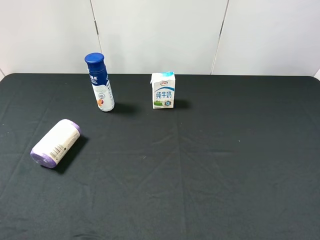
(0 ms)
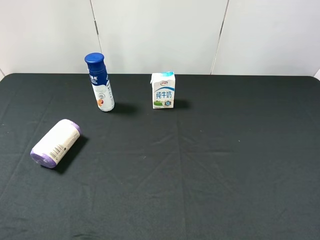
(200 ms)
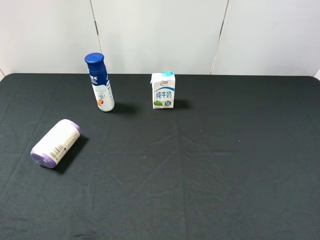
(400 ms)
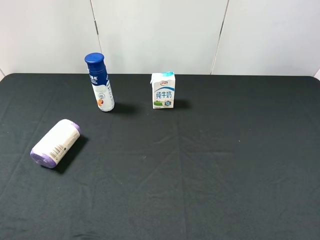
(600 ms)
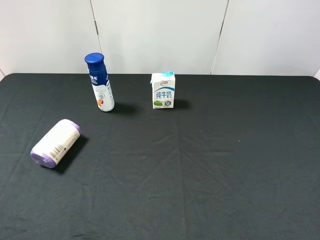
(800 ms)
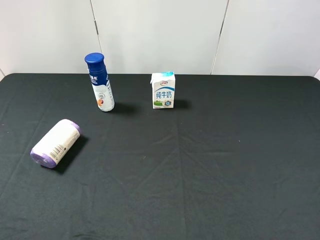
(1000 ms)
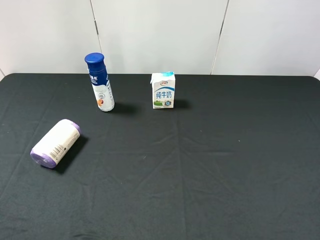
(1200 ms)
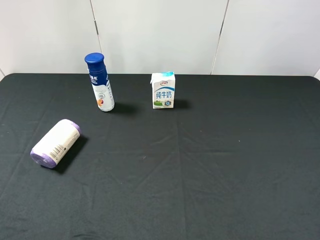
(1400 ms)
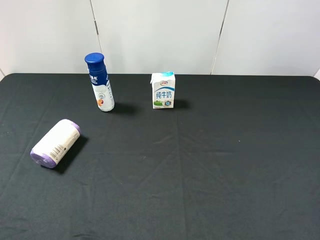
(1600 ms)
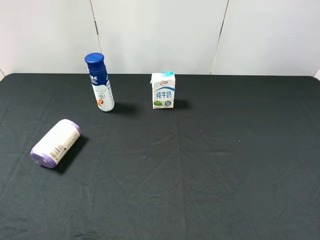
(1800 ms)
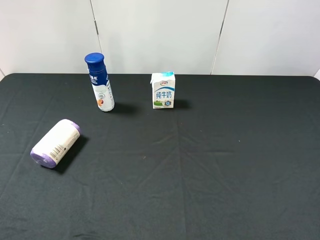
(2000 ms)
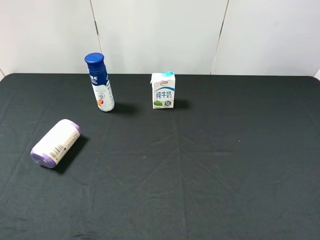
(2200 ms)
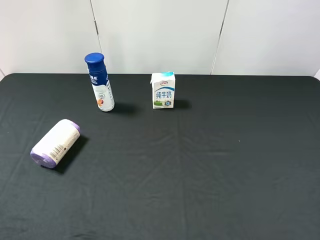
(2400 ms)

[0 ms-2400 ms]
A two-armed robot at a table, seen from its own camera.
Task of the whole recording: use the right gripper to pick up the item and transfer it from the right gripper to the left gripper.
1200 ms to 2400 ms: Both grippers stay about where they are.

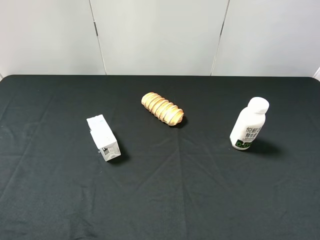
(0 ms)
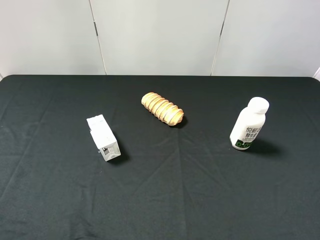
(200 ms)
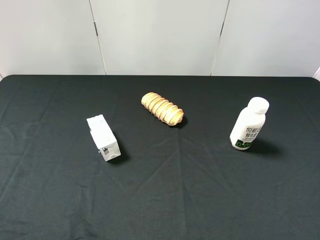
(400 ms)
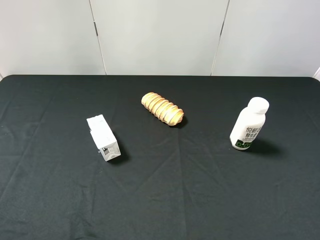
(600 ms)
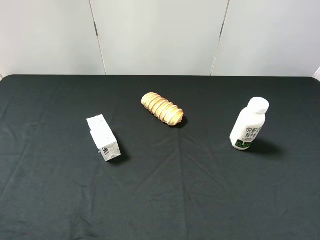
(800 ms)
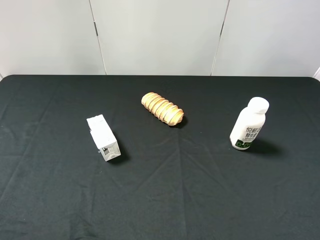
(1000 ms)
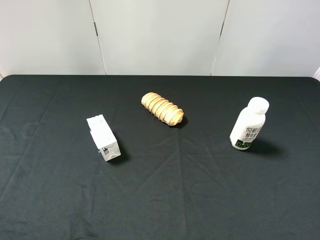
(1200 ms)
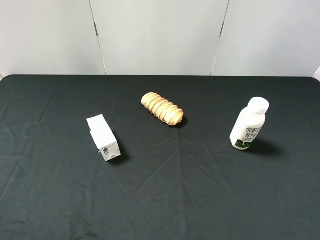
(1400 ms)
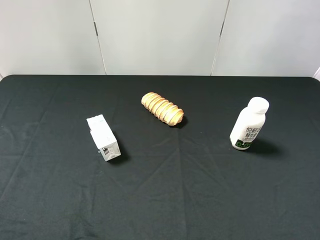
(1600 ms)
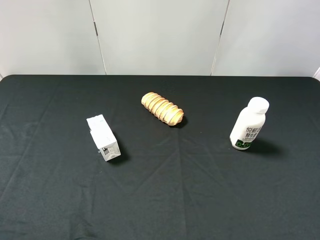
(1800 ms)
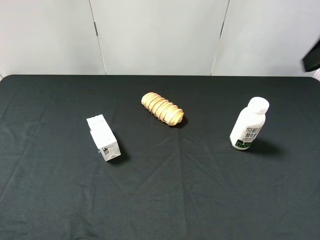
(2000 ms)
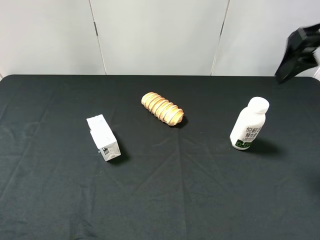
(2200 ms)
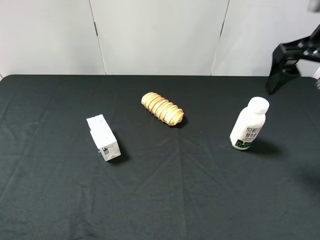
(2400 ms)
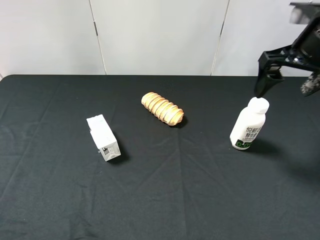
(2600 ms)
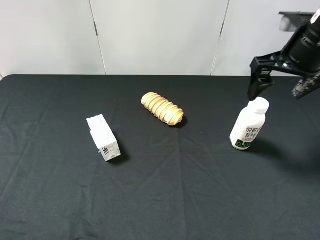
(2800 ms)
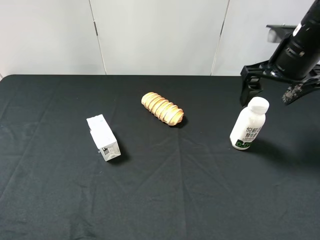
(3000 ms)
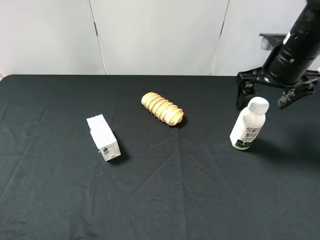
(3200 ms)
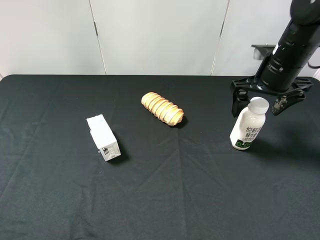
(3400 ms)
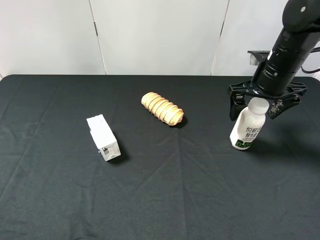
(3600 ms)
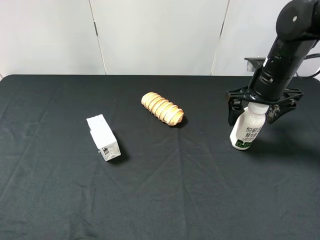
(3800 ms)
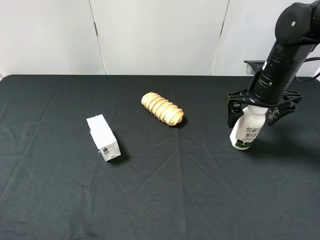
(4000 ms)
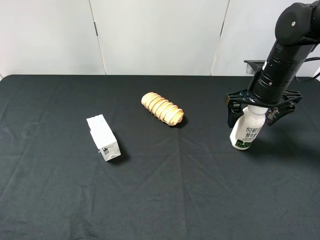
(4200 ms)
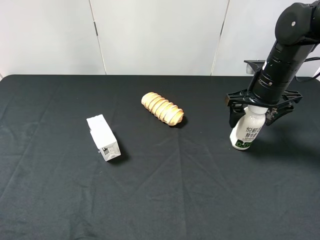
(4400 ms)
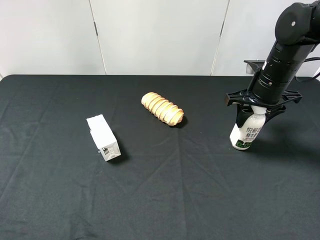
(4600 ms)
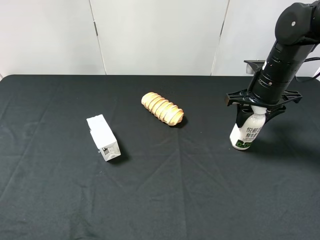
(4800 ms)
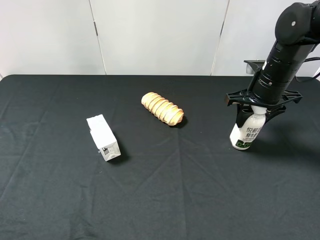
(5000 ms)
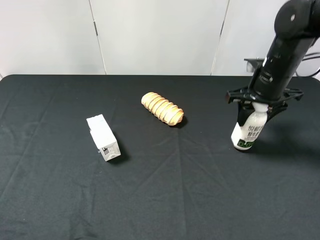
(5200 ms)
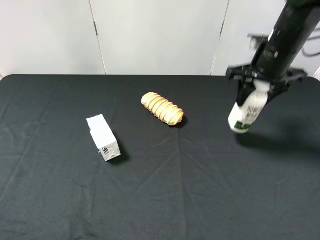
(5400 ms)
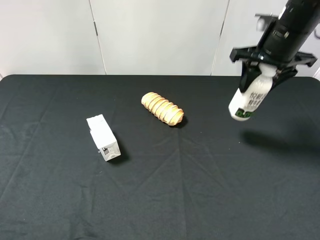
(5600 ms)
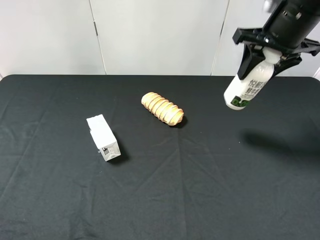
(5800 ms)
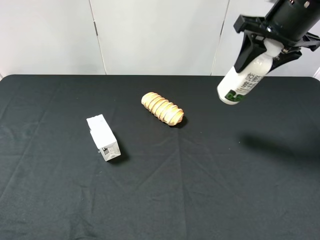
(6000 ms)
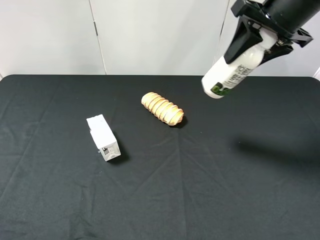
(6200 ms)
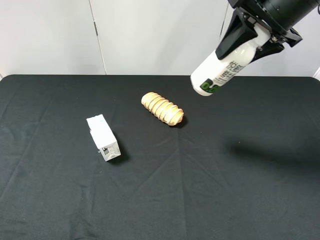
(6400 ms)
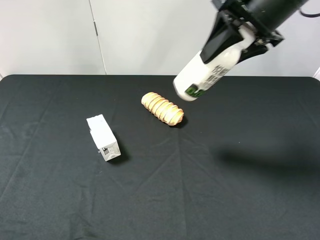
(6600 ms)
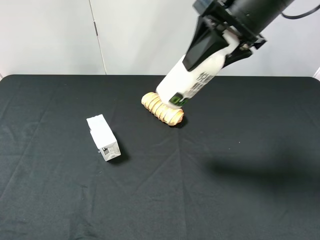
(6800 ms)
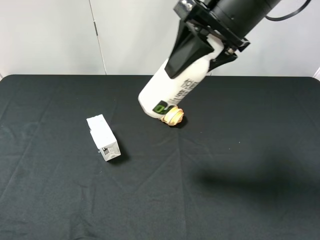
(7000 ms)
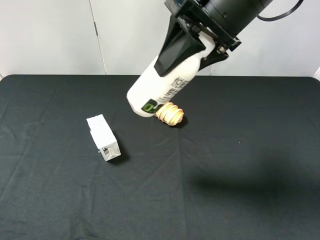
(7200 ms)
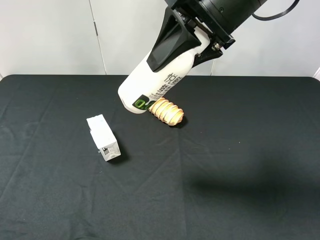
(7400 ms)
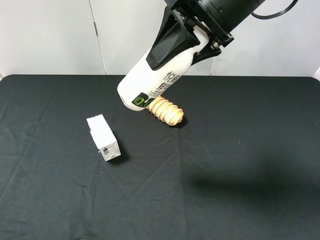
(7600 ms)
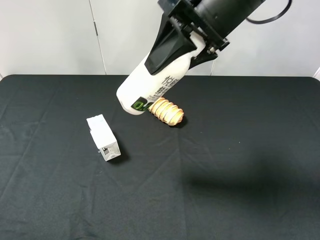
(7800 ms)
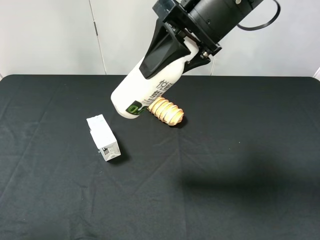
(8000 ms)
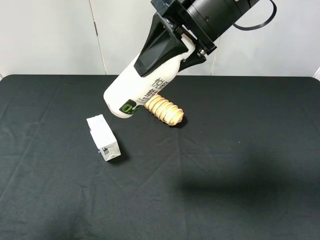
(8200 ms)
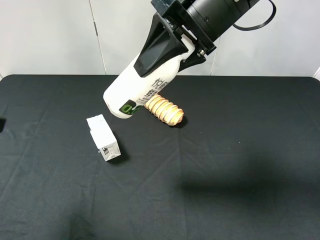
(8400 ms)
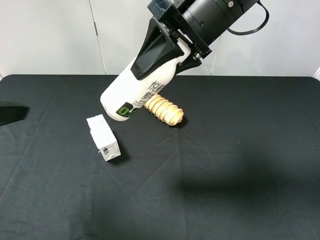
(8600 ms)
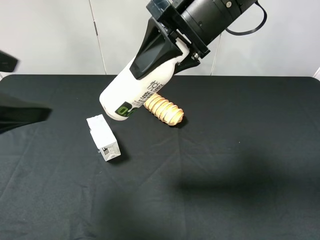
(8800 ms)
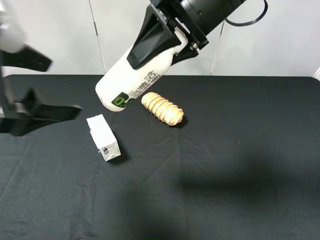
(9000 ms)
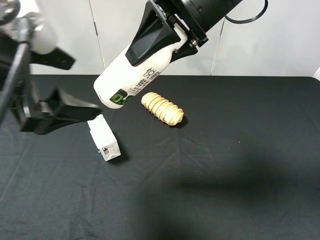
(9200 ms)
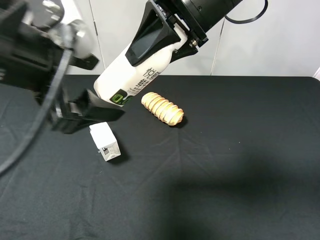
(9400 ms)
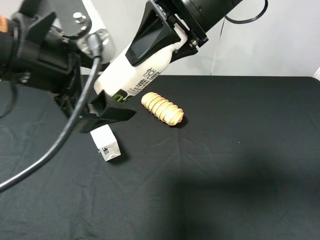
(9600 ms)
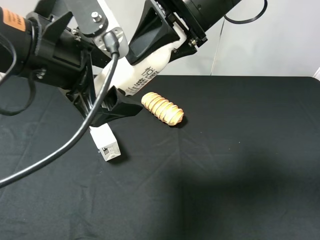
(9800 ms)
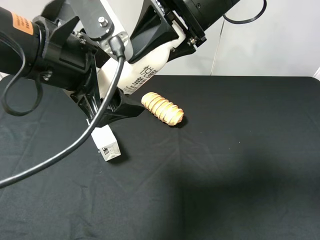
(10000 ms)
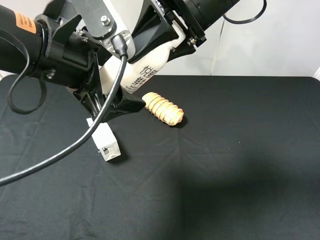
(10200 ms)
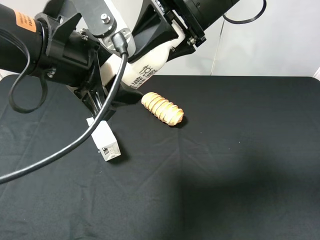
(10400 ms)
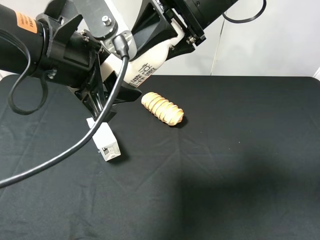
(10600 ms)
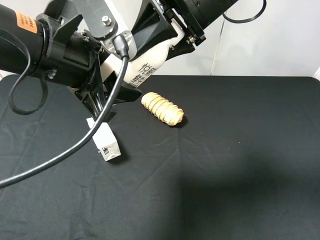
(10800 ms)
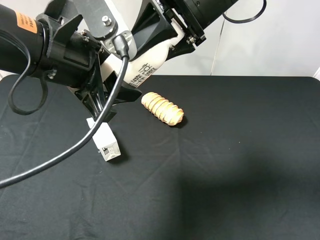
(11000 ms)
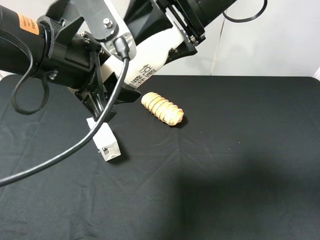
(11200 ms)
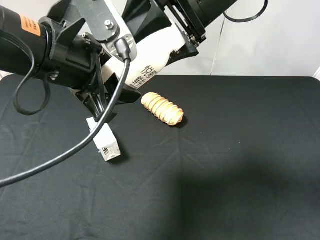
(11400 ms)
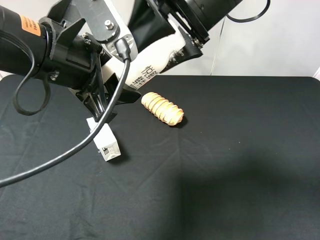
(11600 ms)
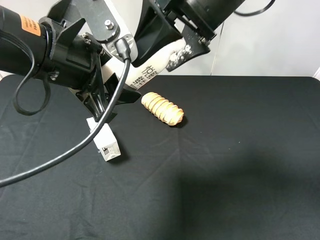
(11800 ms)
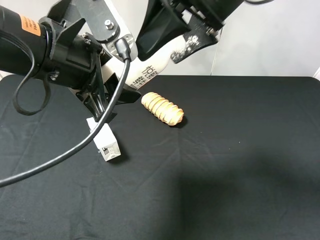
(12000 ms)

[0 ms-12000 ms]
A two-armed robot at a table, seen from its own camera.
Task of the whole recording: use the right gripper to pick up the item and transfer it from the right gripper to the left gripper.
Step, 0 ms to 4600 ms: Use the right gripper to grab the milk on the right side of the table.
Step, 4800 ms to 11200 ms: Pass the milk to the left gripper.
1600 ms to 3000 ms: The right gripper travels forward and downward by roughly 25 cm.
3000 ms to 4400 ms: The right gripper moves downward, some 5 cm, and closes.
4400 ms to 6000 ms: The right gripper moves upward, some 15 cm, and closes up.
6000 ms to 7600 ms: The right gripper shifts roughly 15 cm to the left and backward.
7600 ms to 9000 ms: The left gripper shifts about 20 cm forward and to the right.
9000 ms to 10400 ms: The left gripper travels to the right by about 5 cm, and closes its fingers.
10400 ms to 12000 ms: The right gripper opens.

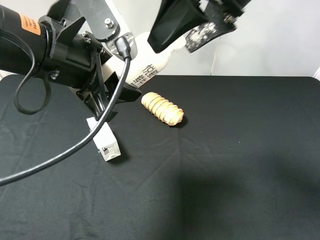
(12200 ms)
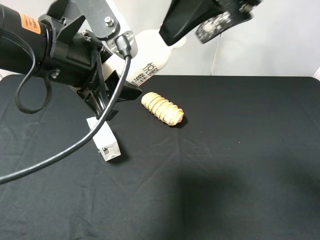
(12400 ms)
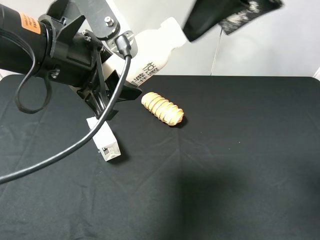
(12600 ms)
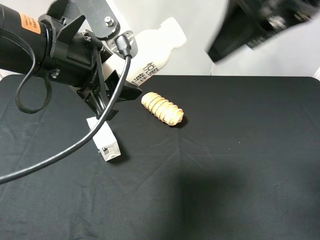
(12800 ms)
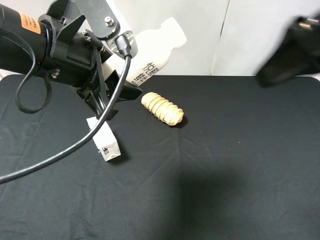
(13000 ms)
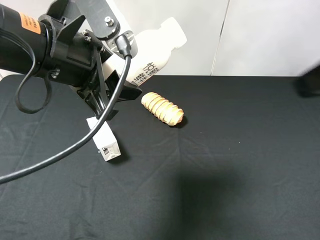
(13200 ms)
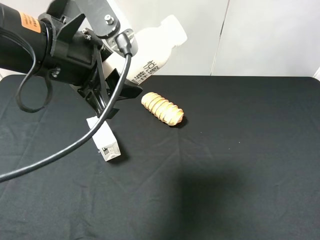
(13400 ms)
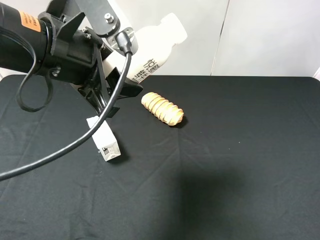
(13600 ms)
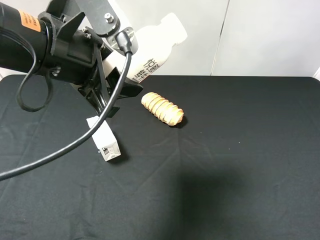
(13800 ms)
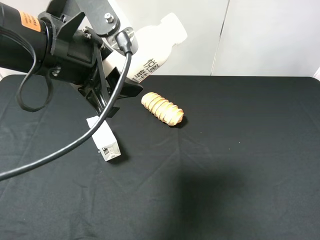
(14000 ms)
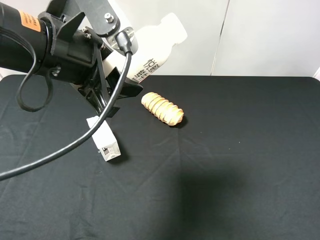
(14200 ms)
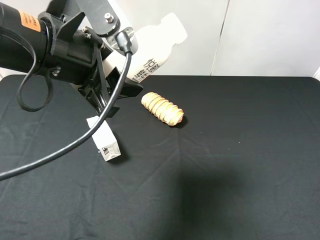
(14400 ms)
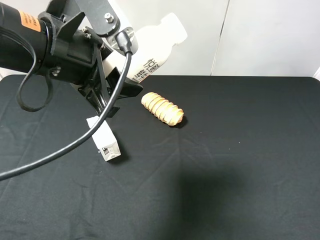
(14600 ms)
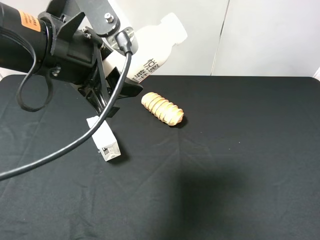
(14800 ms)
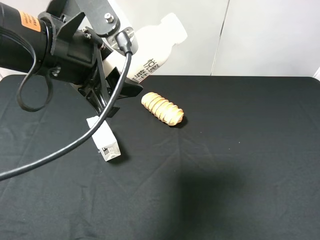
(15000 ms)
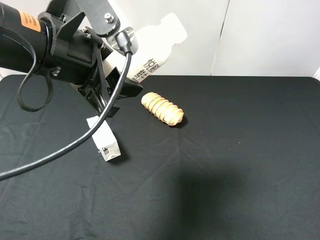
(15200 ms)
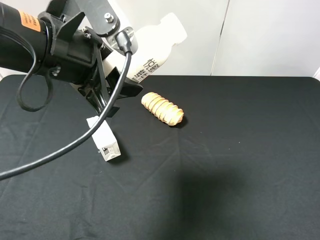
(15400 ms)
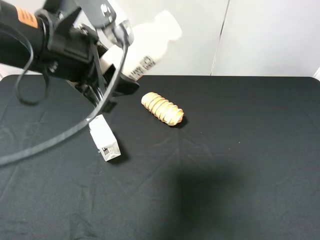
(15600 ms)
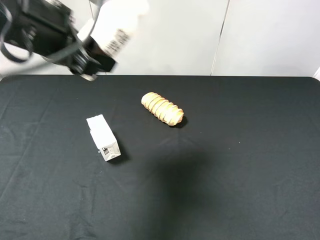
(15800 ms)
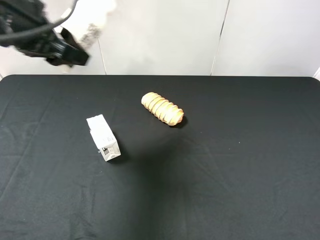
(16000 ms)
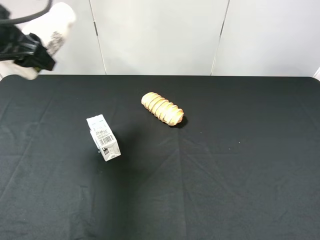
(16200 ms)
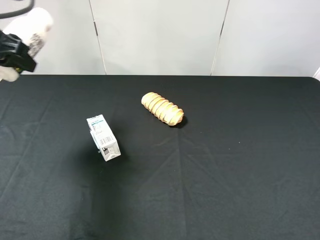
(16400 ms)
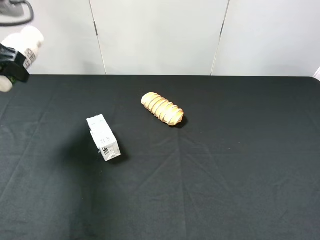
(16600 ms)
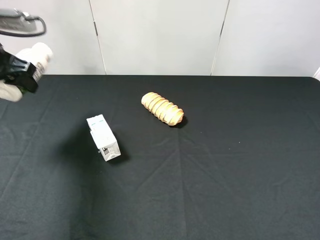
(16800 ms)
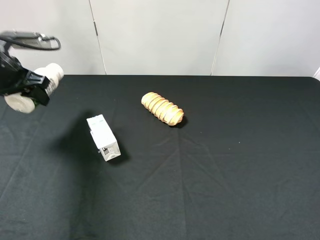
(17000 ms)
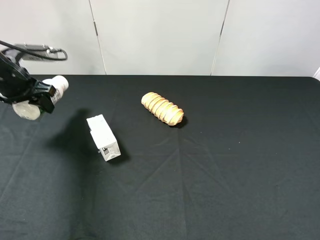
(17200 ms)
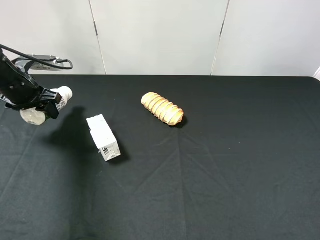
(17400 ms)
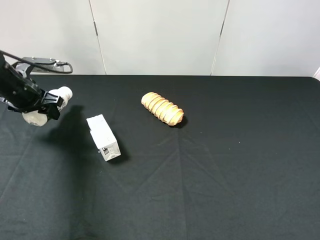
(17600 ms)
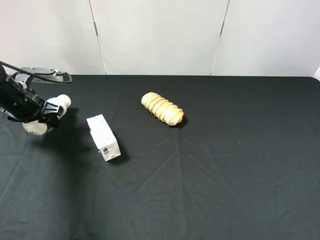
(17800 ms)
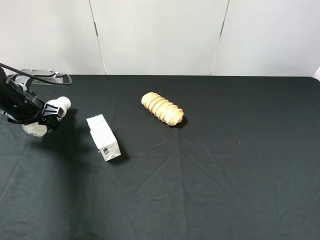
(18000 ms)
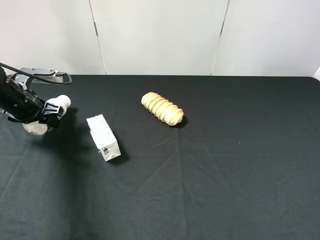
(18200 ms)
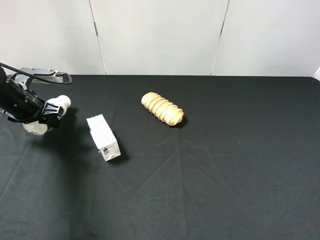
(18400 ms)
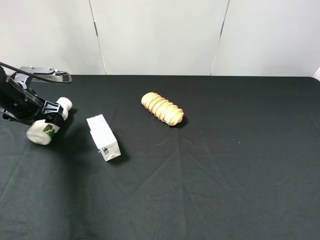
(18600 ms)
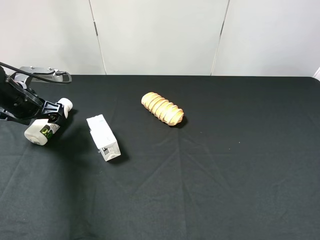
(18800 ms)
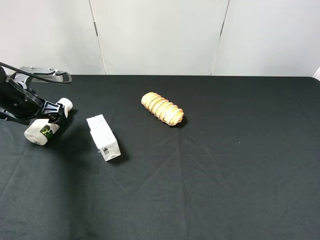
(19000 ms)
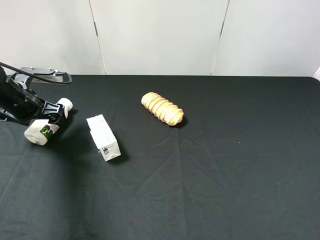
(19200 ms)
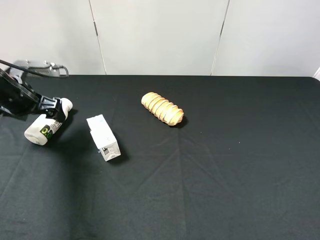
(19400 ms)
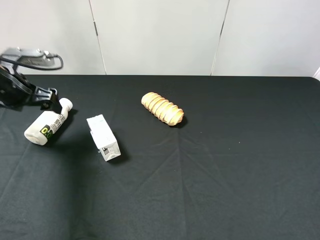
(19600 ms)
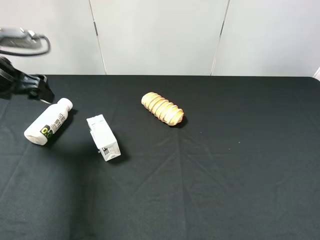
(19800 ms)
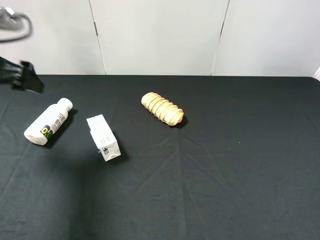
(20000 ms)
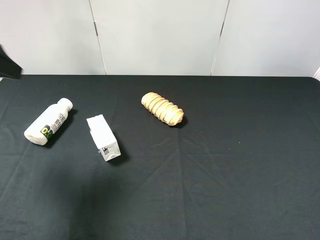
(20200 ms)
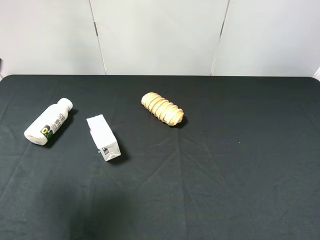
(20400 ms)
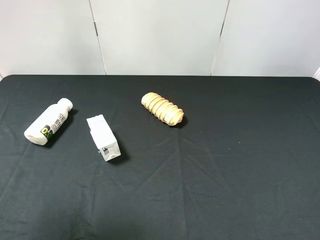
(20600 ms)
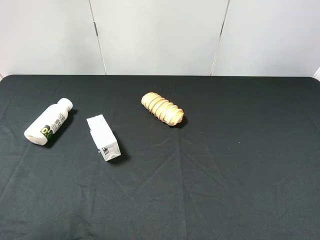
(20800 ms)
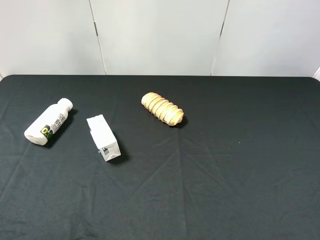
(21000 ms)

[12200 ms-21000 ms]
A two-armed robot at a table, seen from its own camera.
Task of the whole recording: use the right gripper to pick up the item and transfer it from the right gripper to the left gripper.
Step, 12200 ms to 18800 ms: The left gripper places milk on the left side of the table.
12200 ms to 13600 ms: The right gripper shifts about 30 cm backward and to the right.
15200 ms to 16600 ms: The left gripper shifts roughly 20 cm to the left and forward.
16600 ms to 18000 ms: The left gripper shifts some 15 cm downward.
18000 ms to 19600 ms: The left gripper is displaced upward by some 5 cm, and opens up.
19600 ms to 21000 ms: The left gripper heads backward and upward, covering approximately 35 cm.
